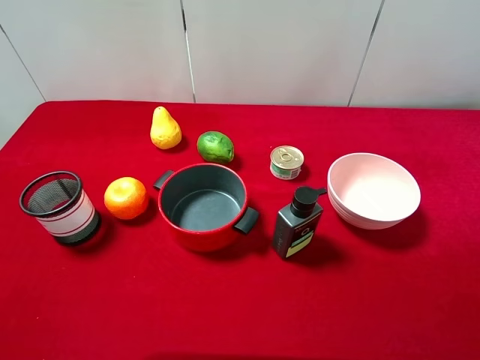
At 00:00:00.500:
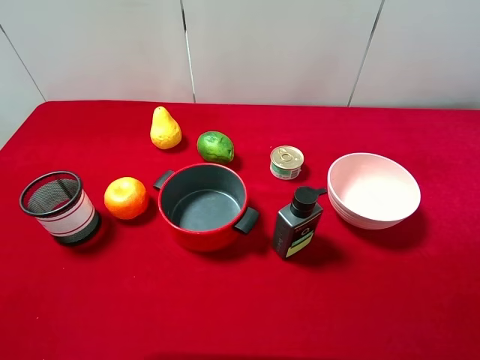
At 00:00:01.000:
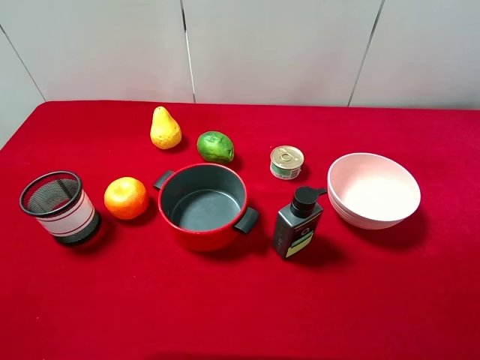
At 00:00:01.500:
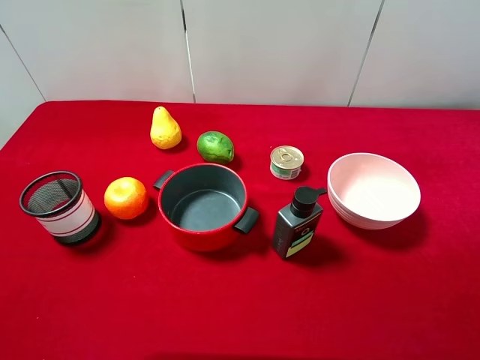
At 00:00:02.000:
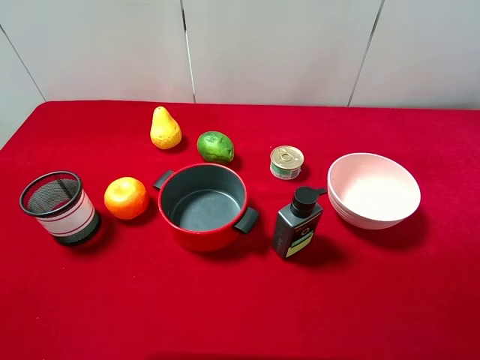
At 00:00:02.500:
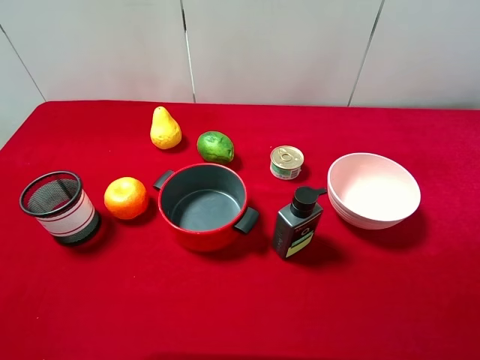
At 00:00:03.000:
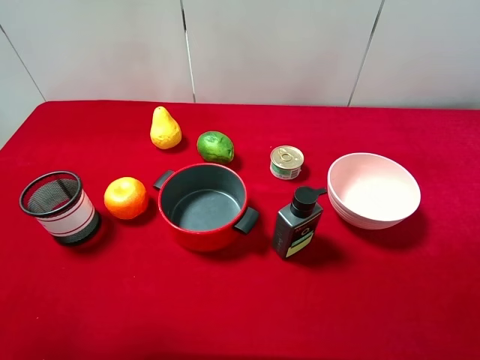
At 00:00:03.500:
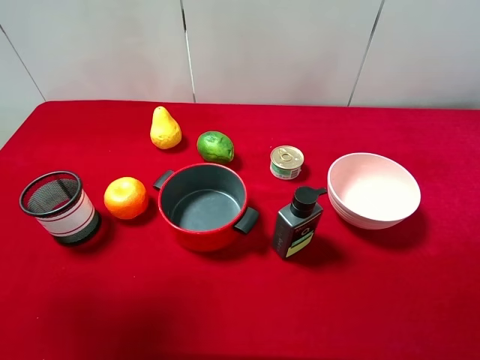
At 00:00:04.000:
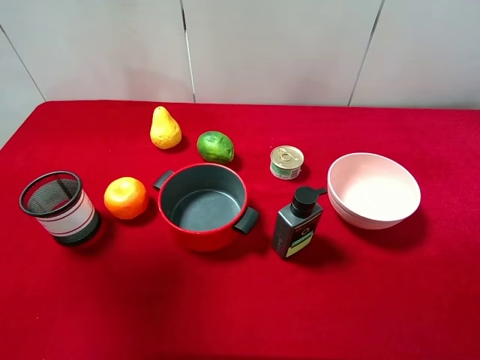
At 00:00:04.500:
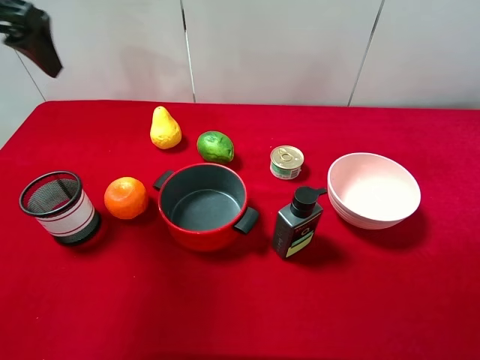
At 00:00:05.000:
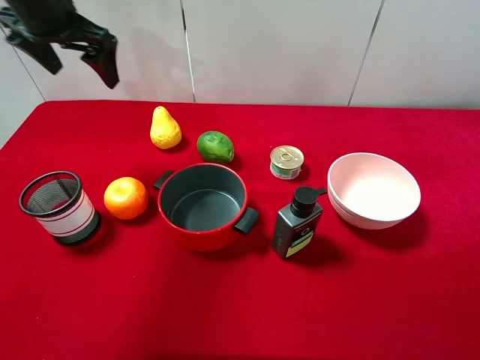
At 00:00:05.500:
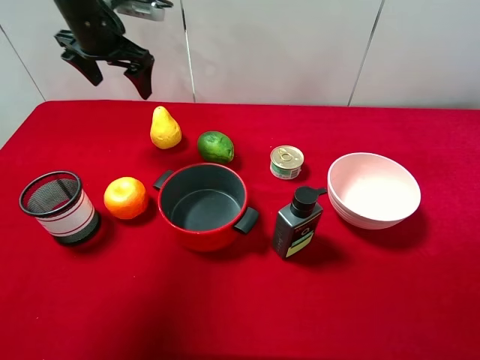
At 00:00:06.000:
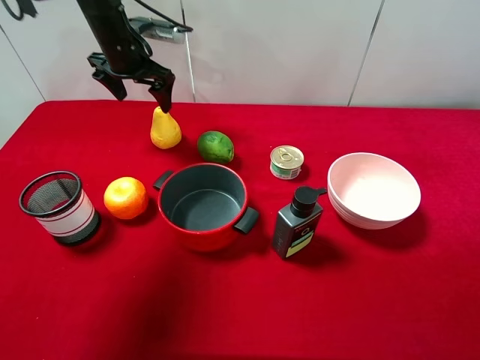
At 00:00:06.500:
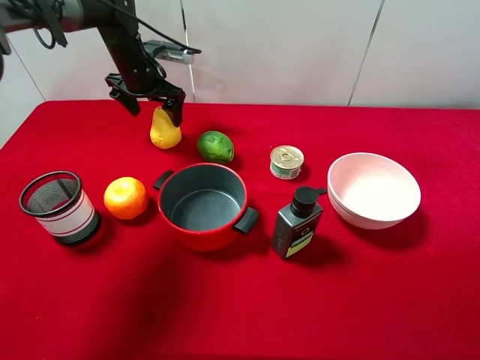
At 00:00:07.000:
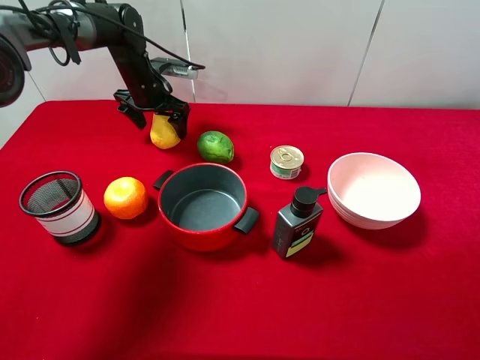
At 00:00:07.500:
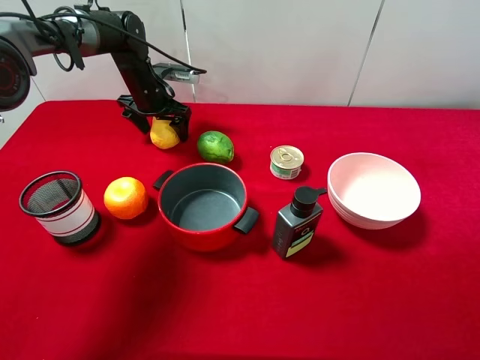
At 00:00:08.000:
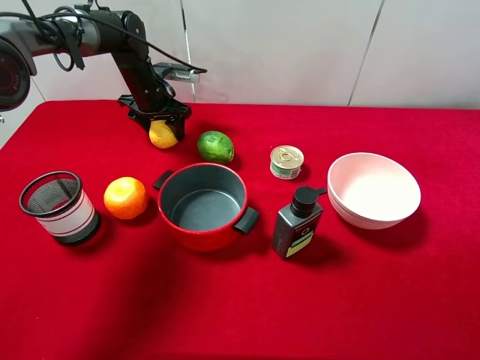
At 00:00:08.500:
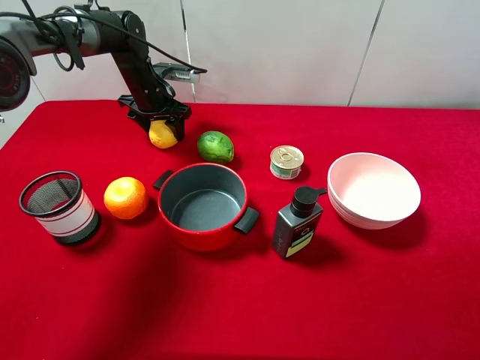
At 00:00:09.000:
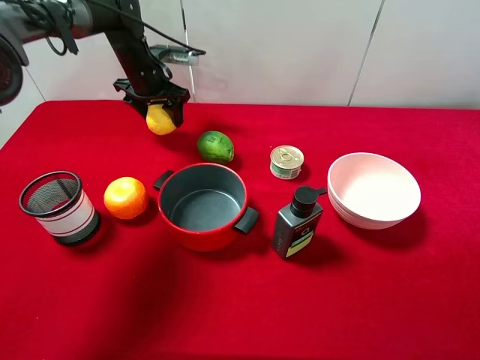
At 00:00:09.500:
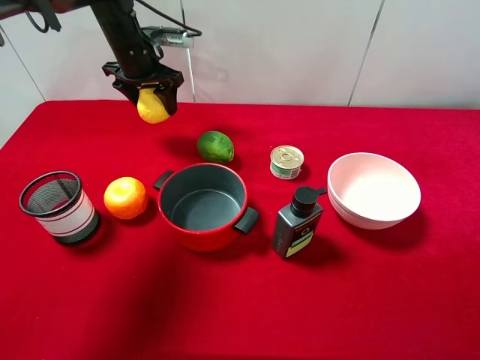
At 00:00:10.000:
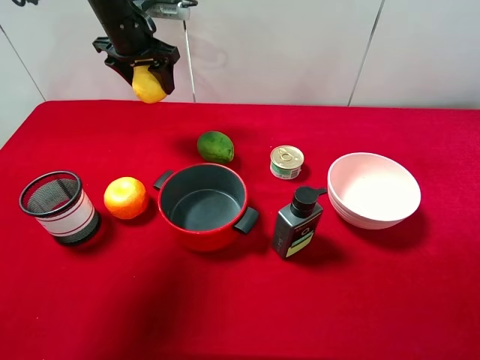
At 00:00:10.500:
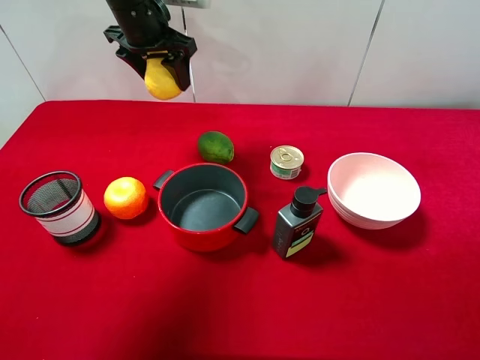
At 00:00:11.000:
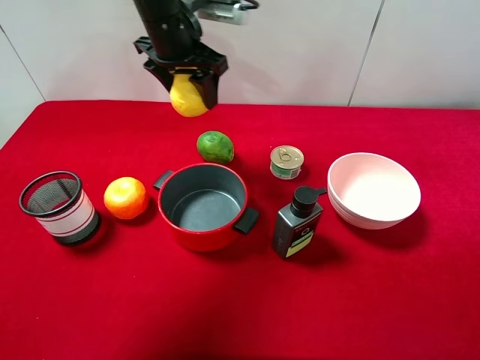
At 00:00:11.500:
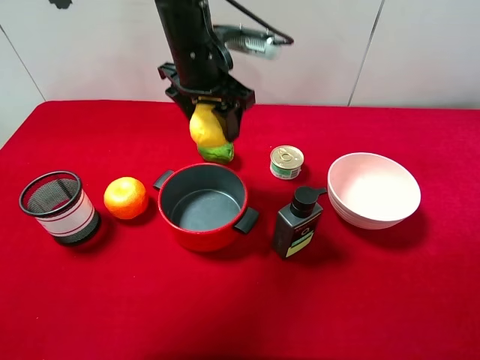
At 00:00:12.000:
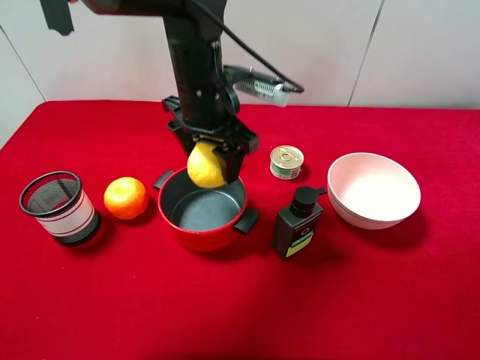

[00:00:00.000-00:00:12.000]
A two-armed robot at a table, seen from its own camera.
Task of the whole recording: pick up an item with a gripper and place it in a random container on the desktop.
00:00:00.000 to 00:00:02.000: Both grippers stay about where they are.
00:00:02.000 to 00:00:04.000: The left gripper travels forward and upward by about 25 cm.
00:00:04.000 to 00:00:06.000: The left gripper travels forward, downward and to the right by about 30 cm.
00:00:06.000 to 00:00:08.000: The left gripper goes some 10 cm downward, and closes.
00:00:08.000 to 00:00:10.000: The left gripper heads upward, covering about 10 cm.
00:00:10.000 to 00:00:12.000: The left gripper shifts approximately 20 cm backward and to the right.

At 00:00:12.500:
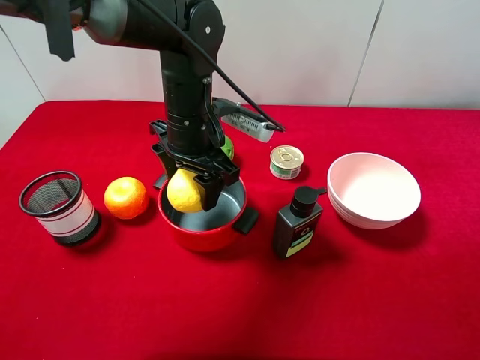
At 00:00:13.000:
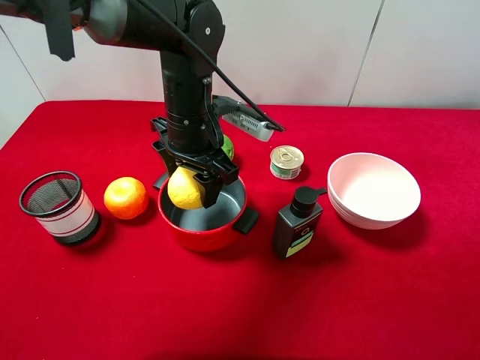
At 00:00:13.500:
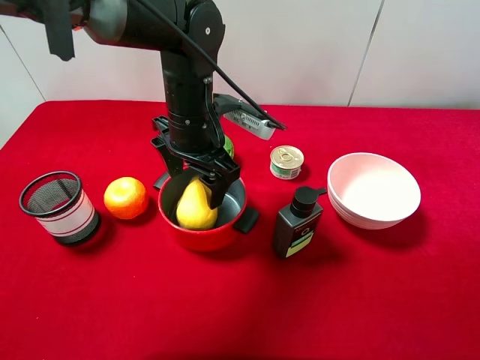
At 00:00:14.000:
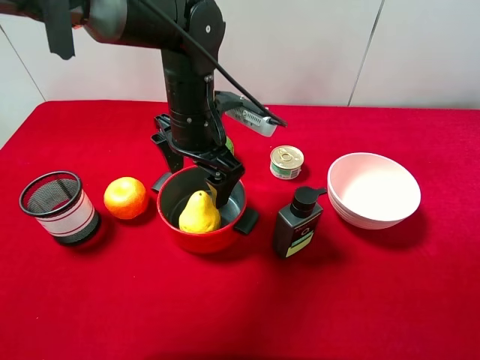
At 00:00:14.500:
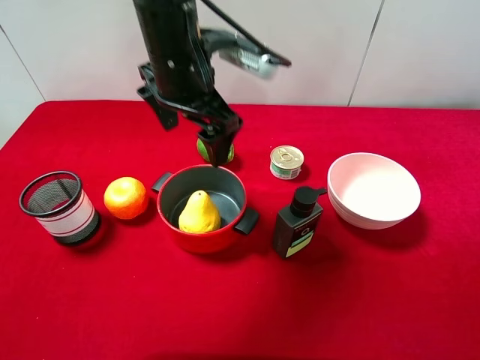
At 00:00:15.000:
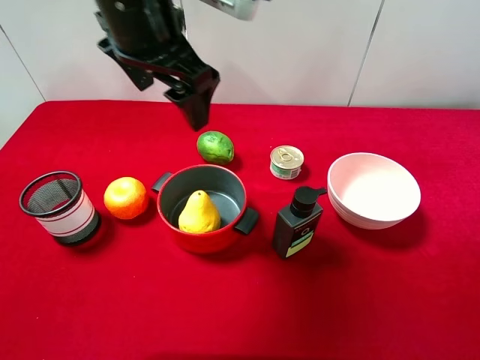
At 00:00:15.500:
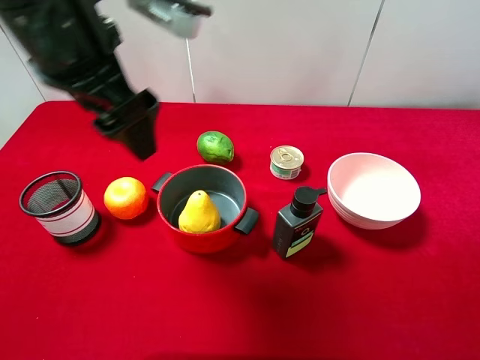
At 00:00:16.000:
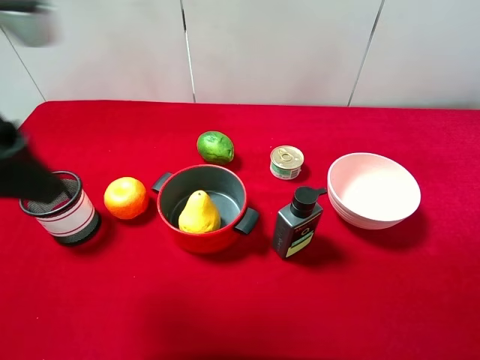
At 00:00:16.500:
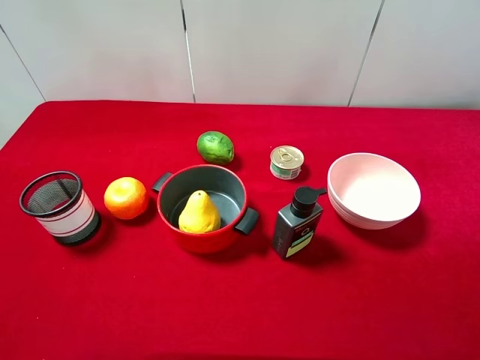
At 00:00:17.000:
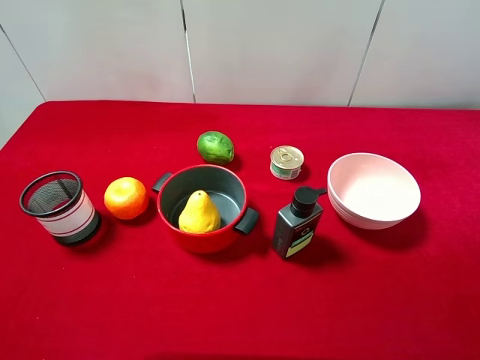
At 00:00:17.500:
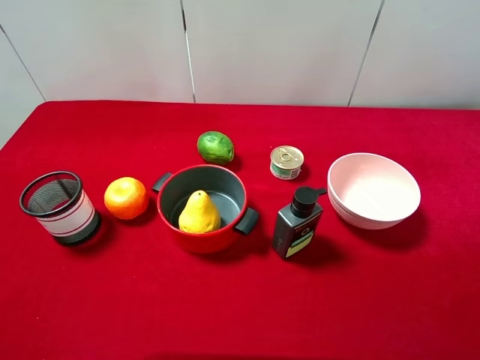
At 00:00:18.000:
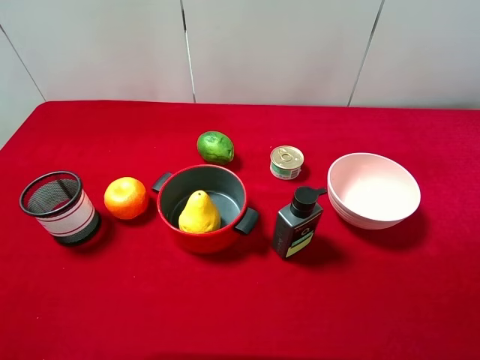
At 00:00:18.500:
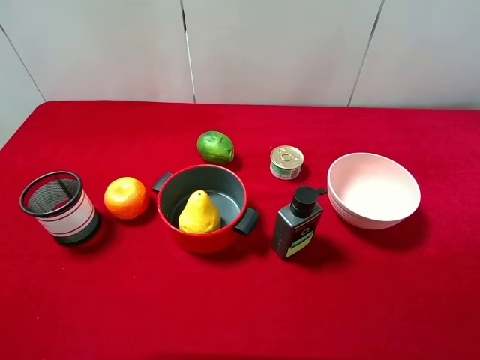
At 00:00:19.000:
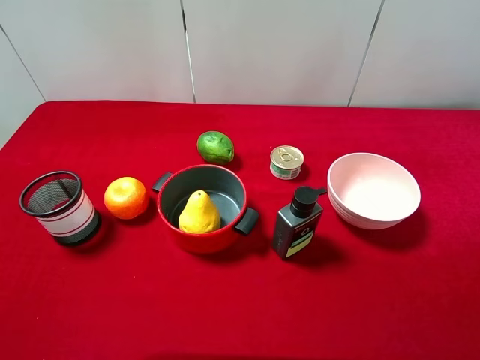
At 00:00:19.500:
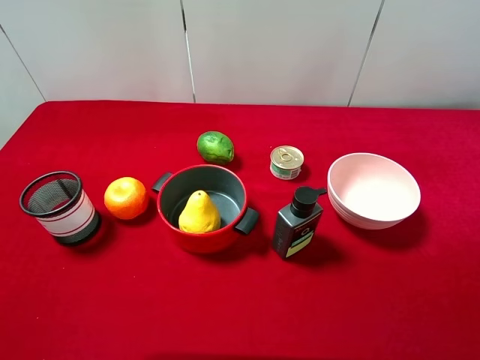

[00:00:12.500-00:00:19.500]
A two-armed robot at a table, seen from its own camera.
Task of the whole recording: pick up an item with a gripper and place it in a random container on the desktop.
00:00:12.500 to 00:00:14.500: The left gripper travels upward by approximately 10 cm, and opens its fingers.
00:00:14.500 to 00:00:16.000: The left gripper heads backward, to the left and upward, covering roughly 25 cm.
00:00:16.000 to 00:00:17.500: The left gripper shifts approximately 15 cm backward, to the left and downward.
